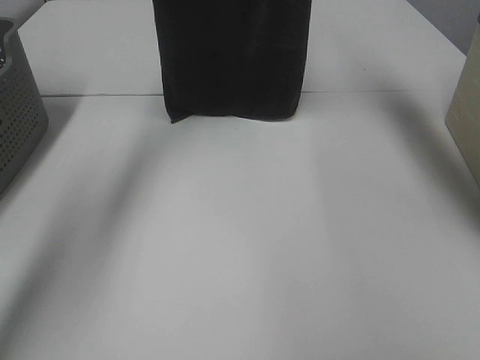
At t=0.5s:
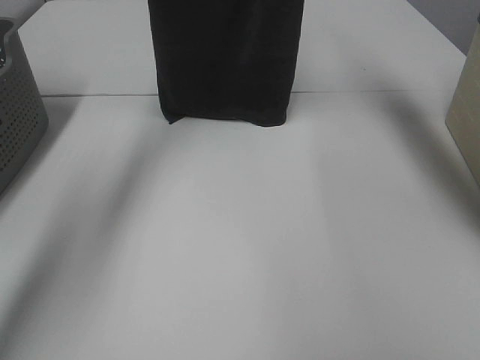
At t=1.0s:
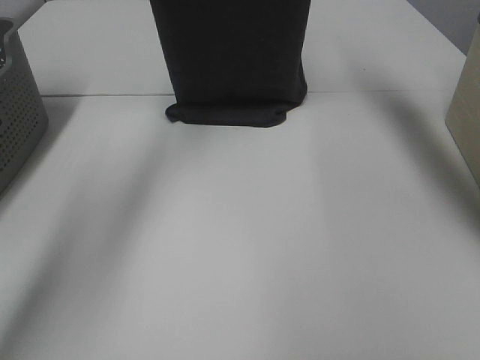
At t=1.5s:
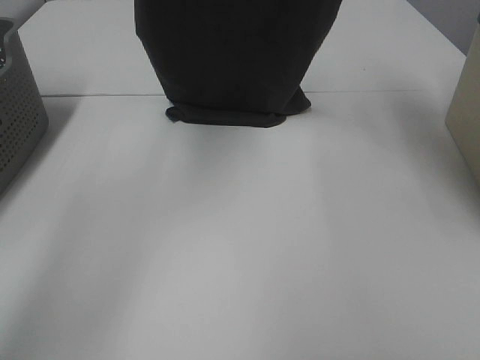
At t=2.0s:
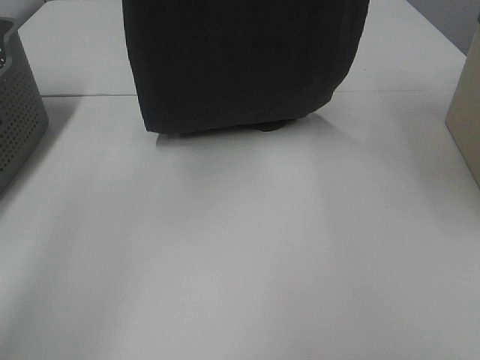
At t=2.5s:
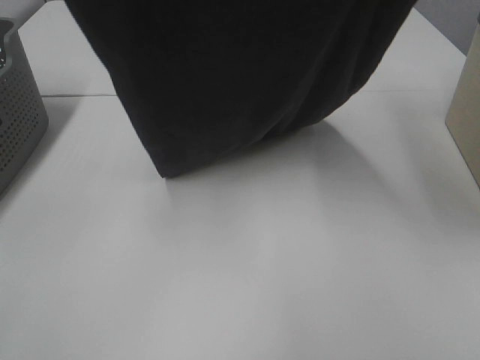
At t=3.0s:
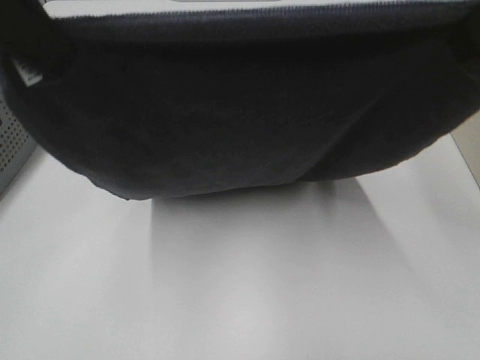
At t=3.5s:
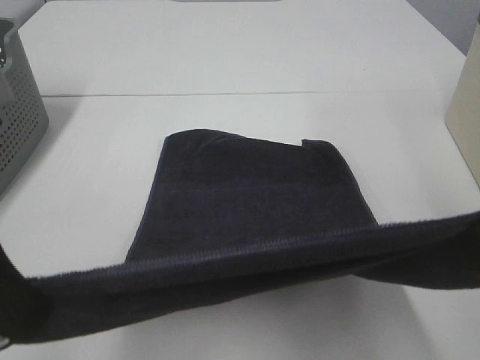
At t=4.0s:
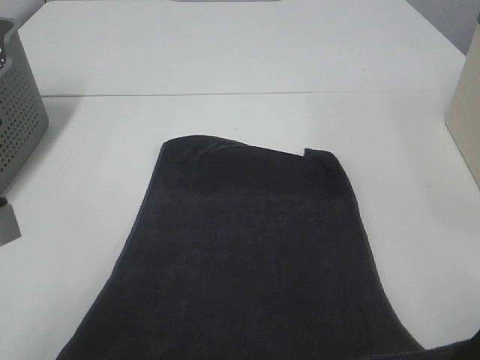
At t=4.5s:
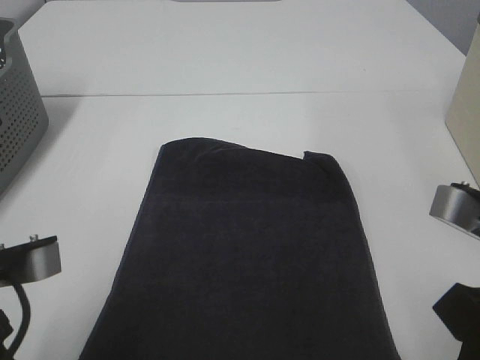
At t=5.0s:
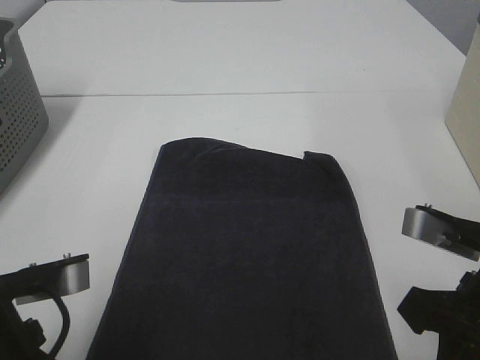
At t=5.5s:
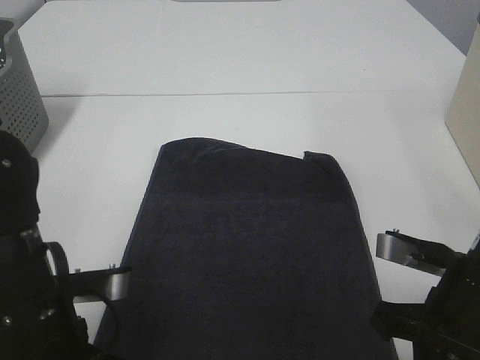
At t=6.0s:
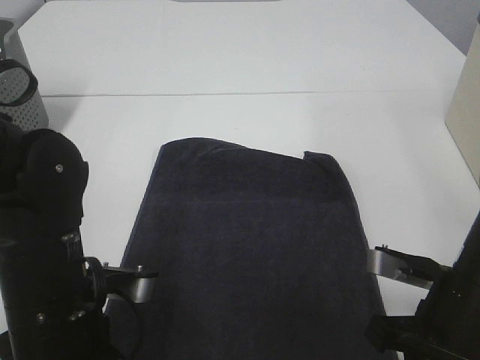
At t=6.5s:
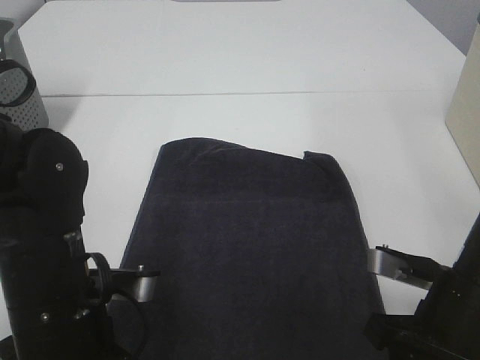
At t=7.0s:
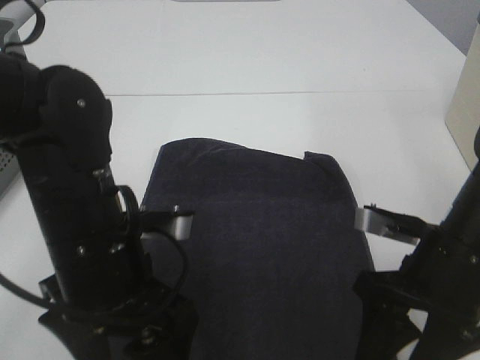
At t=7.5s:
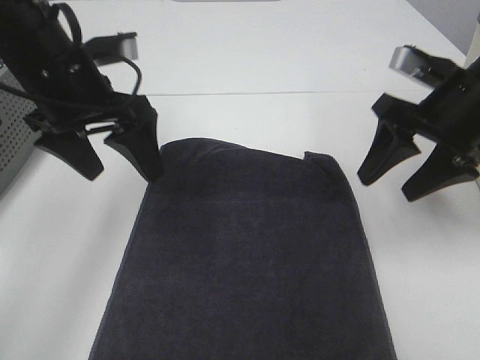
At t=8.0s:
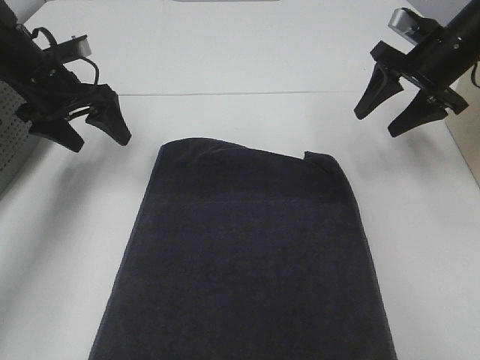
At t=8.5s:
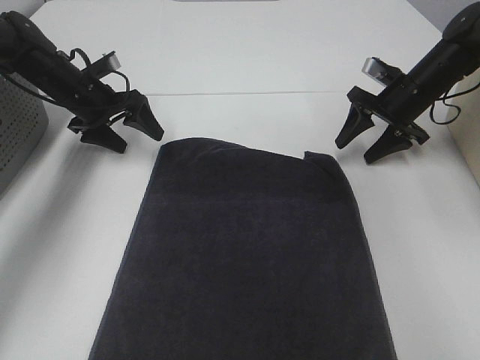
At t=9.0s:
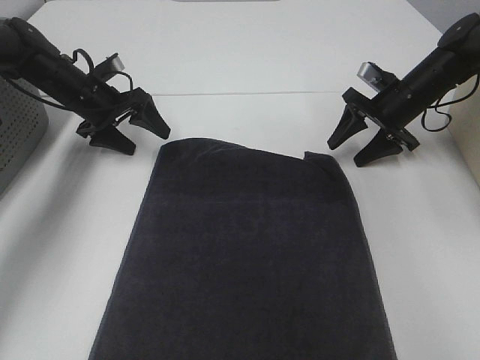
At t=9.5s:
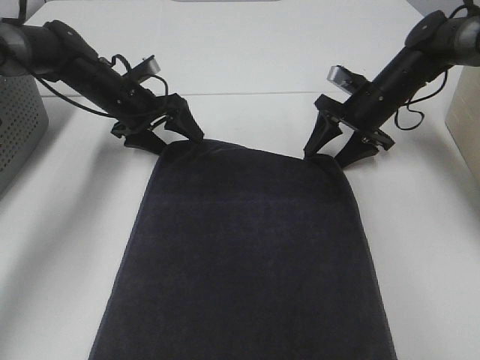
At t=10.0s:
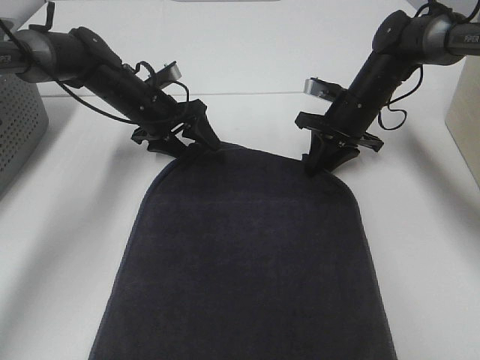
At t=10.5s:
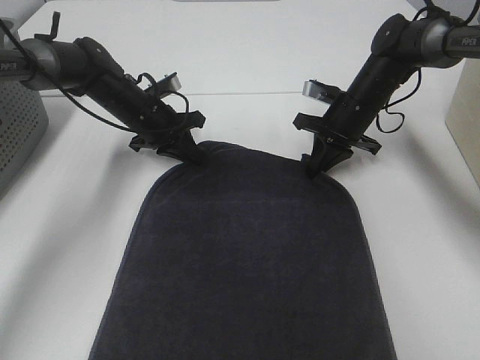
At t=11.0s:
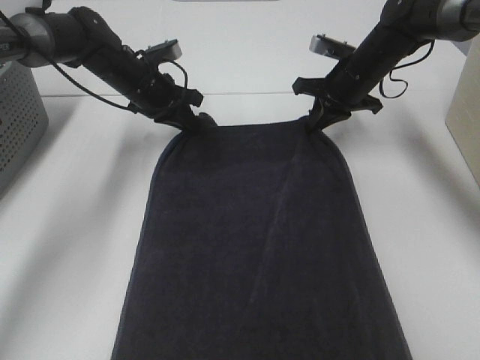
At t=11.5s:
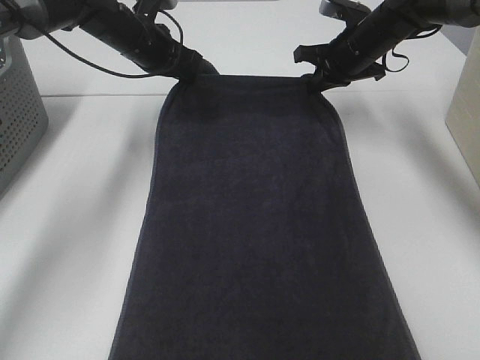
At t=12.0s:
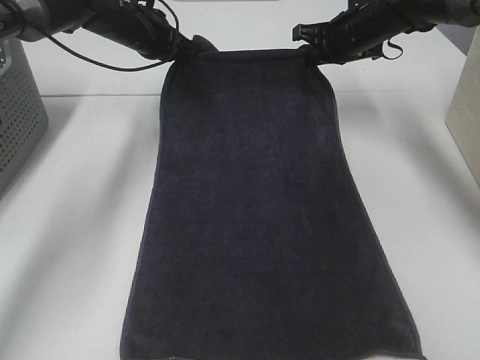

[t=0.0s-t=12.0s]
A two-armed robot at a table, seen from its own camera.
Task of the whole recording: Remove the towel and place it.
Step, t=2.0s to t=6.5s: Left hand:adjust the gray towel.
Step, t=2.0s to t=6.5s: Right hand:adjust the gray towel.
t=0.0s to t=2.0s: The grippers both shift backward by about 15 cm.
t=2.0s to t=4.0s: The two grippers go roughly 35 cm backward and downward.
t=4.0s to t=6.0s: The left gripper heads downward, forward and to the right, covering some 15 cm. Meanwhile the right gripper travels downward and forward by about 15 cm.
t=6.0s to t=8.0s: The right gripper shifts some 30 cm forward, and opens; the left gripper shifts about 30 cm forward and to the left, and opens.
t=8.0s to t=10.0s: The left gripper travels to the right, downward and forward by approximately 15 cm; the right gripper shifts some 15 cm downward and to the left, and closes up.
t=10.0s to t=12.0s: Both grippers move upward and forward, roughly 10 cm. The left gripper closes.

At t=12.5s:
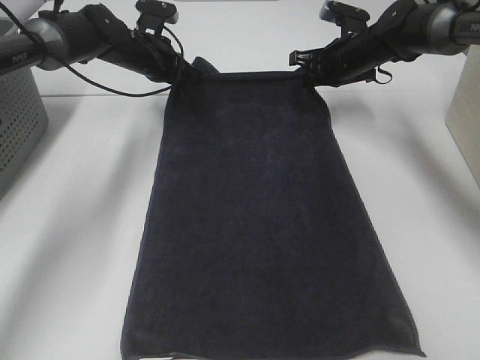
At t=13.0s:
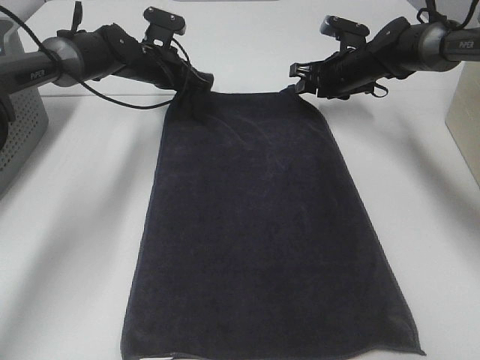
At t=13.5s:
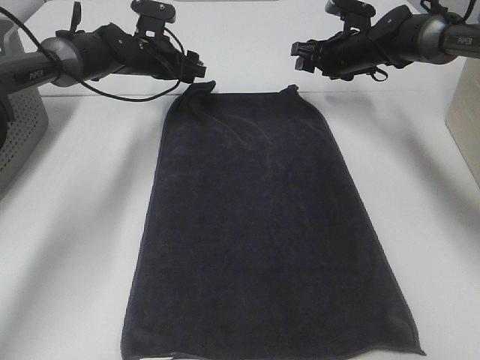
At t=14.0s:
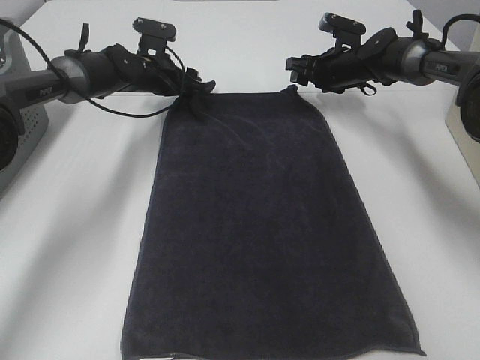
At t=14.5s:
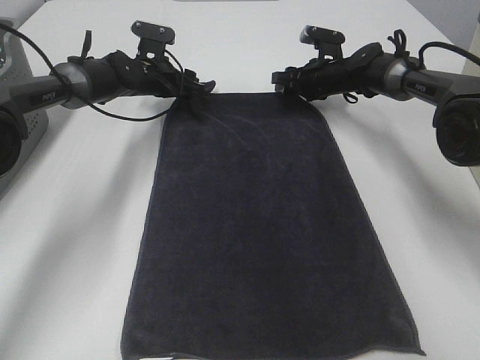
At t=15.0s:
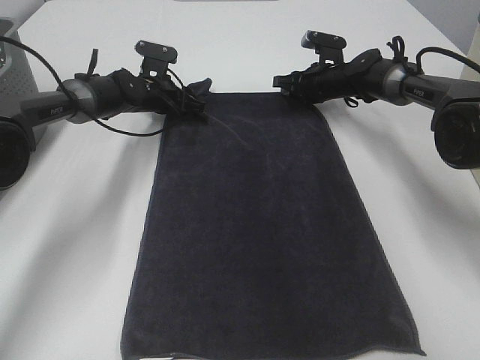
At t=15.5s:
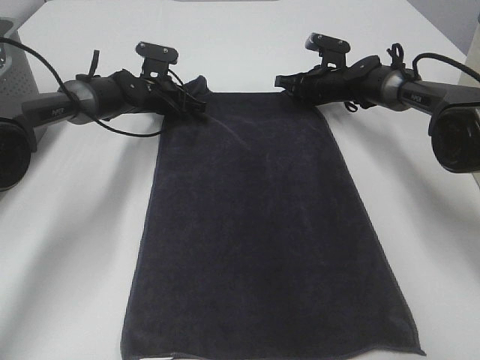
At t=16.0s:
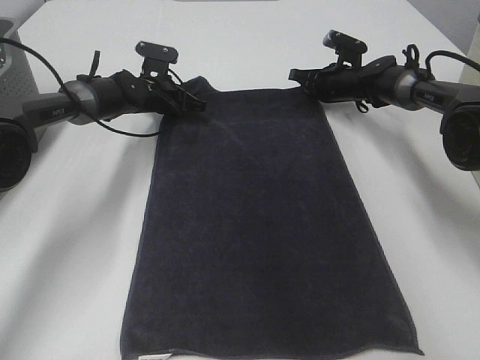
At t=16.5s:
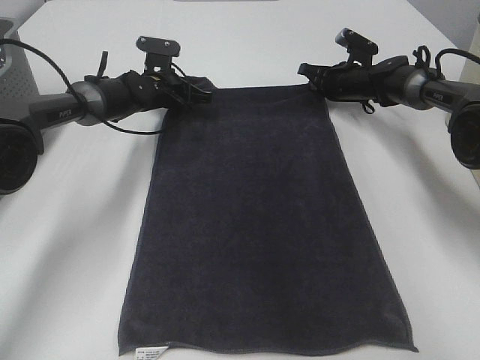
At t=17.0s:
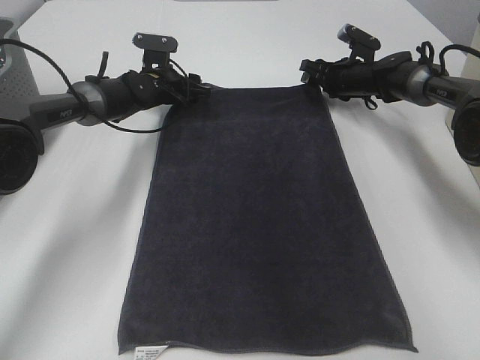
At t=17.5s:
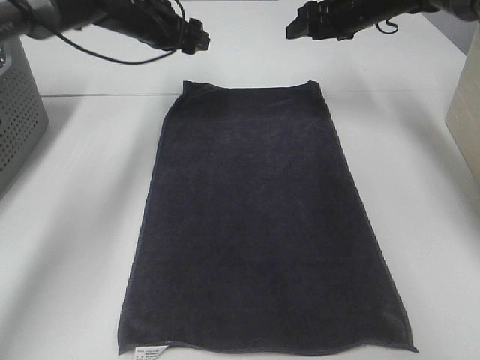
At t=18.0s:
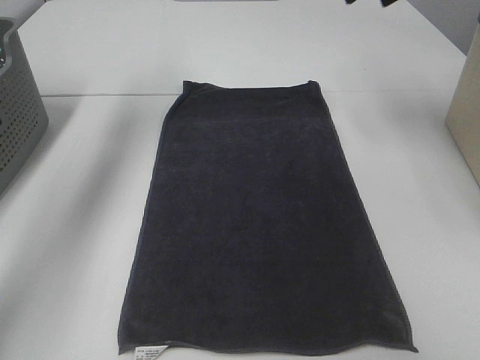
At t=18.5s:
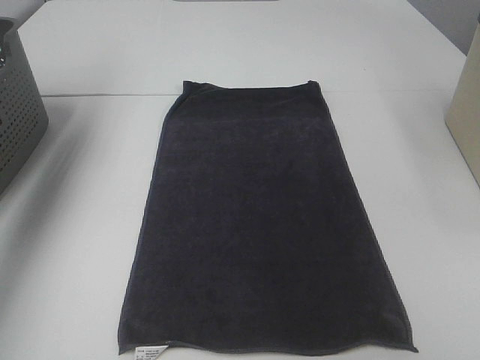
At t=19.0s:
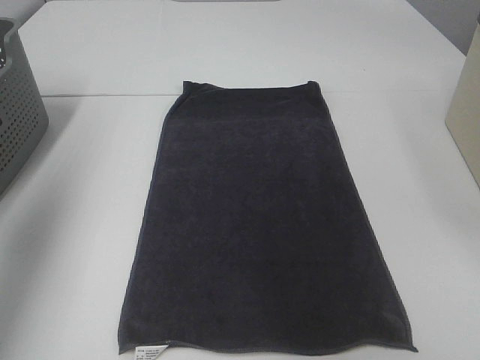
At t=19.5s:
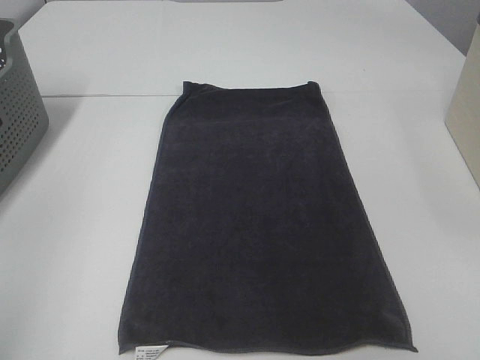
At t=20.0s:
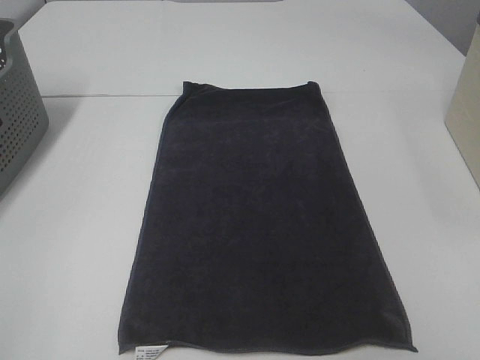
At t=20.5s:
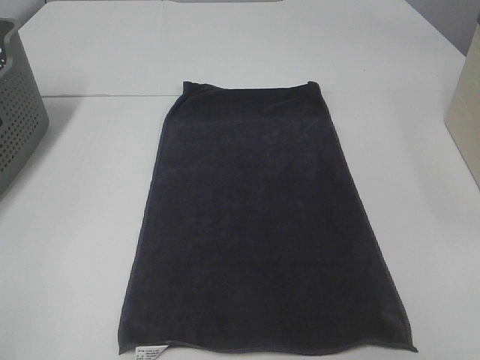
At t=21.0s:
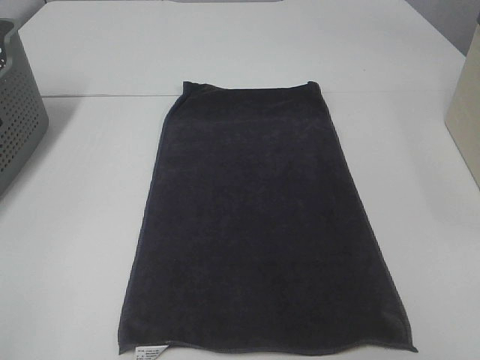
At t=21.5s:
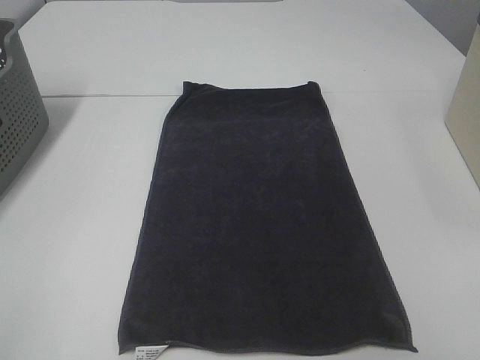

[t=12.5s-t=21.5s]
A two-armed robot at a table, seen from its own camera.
Task of the whole recording: Remove the towel and place it.
t=12.5s to t=14.5s: The two grippers go about 5 cm downward. The left gripper opens its fingers. Meanwhile the right gripper opens.
t=14.5s to t=17.0s: The right gripper ends up approximately 5 cm from where it was, and closes, then reopens, while the left gripper closes, then reopens.
t=17.0s to t=19.5s: Both grippers travel together backward and upward, approximately 60 cm.

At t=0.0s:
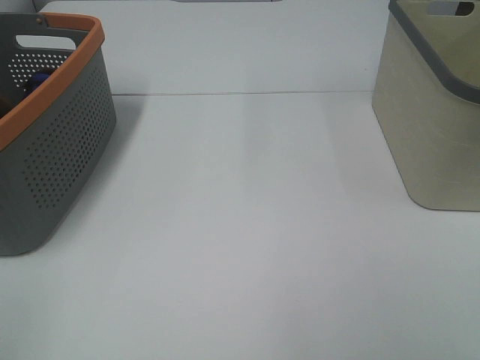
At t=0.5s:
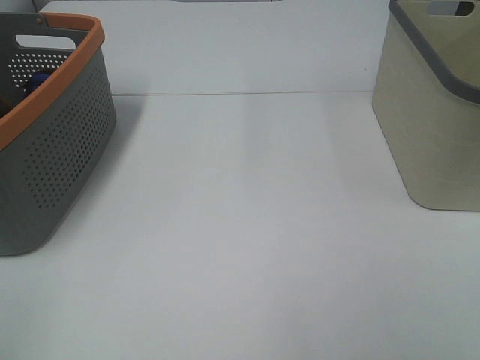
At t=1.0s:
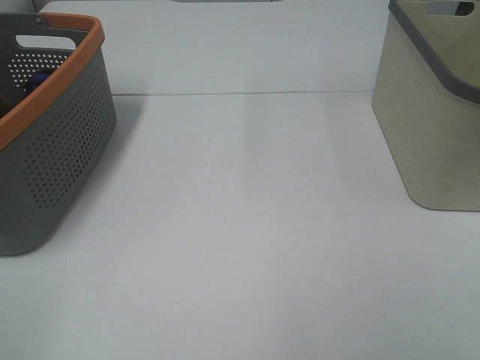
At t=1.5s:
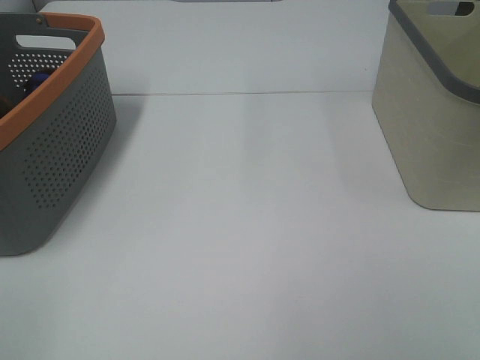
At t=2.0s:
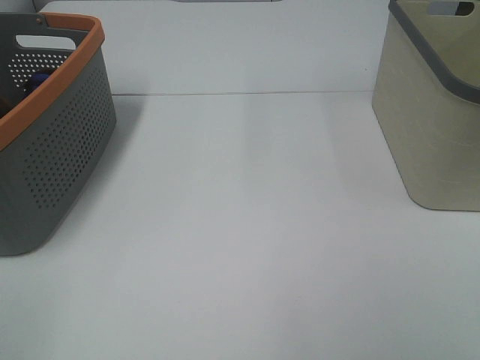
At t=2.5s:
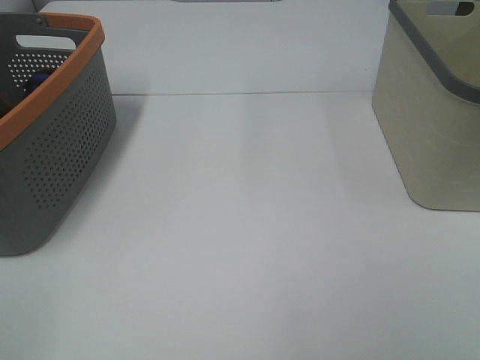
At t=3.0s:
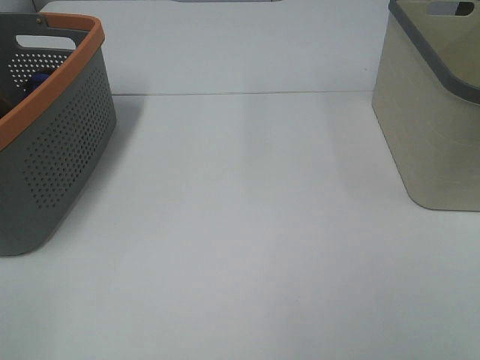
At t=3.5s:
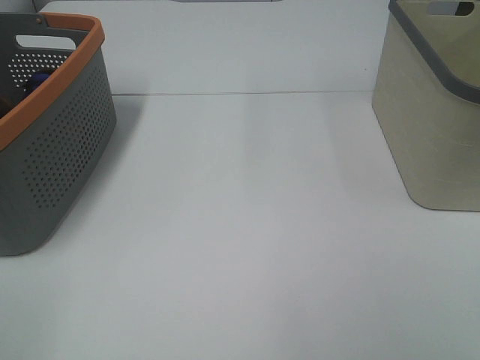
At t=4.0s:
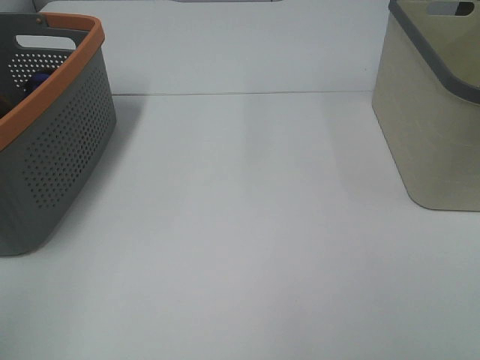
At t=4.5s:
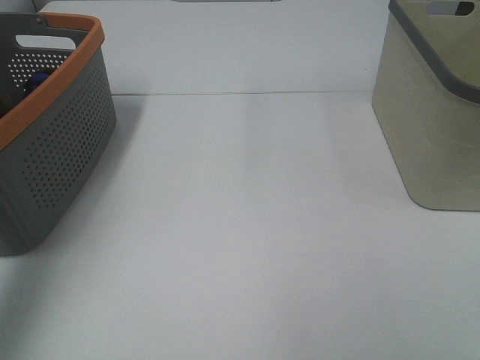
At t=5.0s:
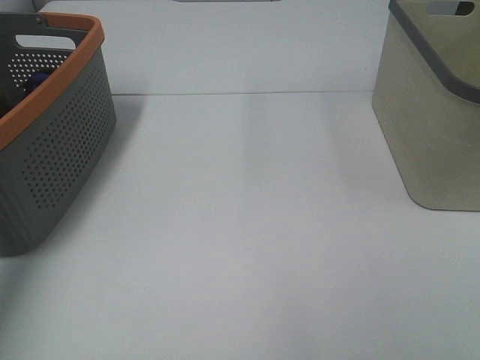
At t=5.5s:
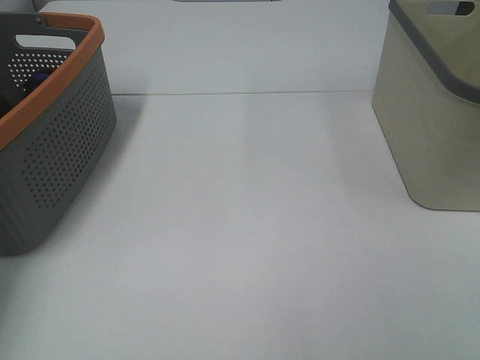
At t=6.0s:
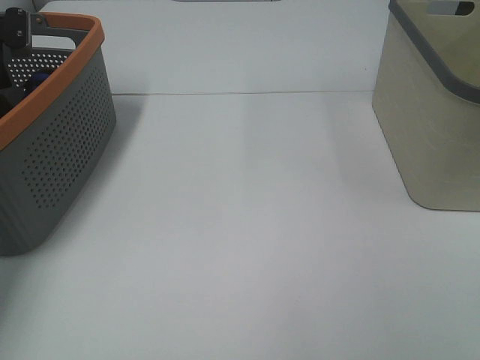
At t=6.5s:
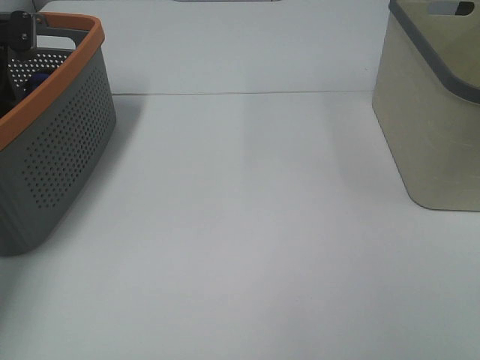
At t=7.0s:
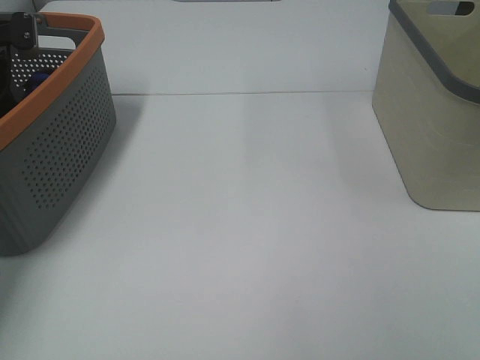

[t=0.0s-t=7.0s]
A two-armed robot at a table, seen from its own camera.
Task of the whole recording: Remove the towel and place it.
t=0.0s to t=3.5s: Both grippers stay put.
t=3.5s to t=5.0s: The left gripper travels forward by roughly 40 cm.
